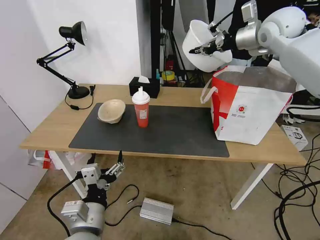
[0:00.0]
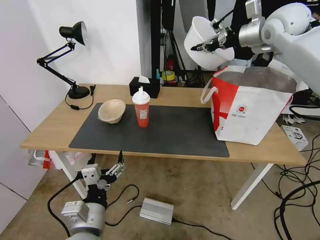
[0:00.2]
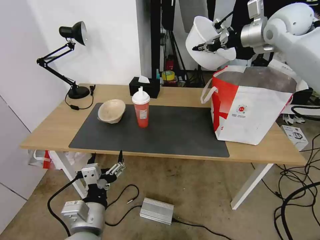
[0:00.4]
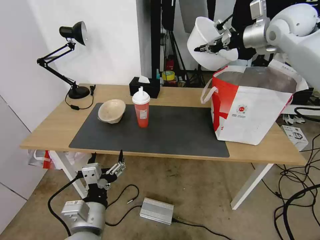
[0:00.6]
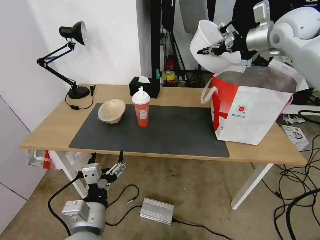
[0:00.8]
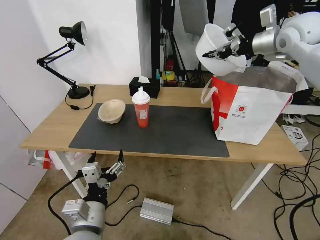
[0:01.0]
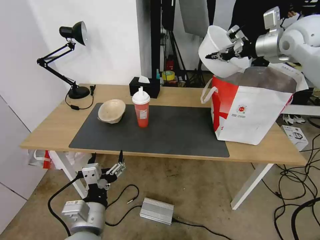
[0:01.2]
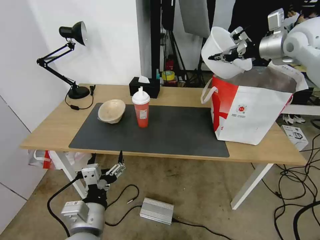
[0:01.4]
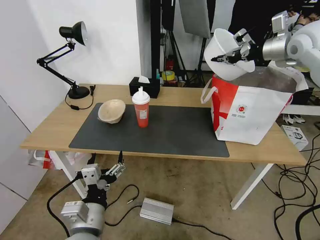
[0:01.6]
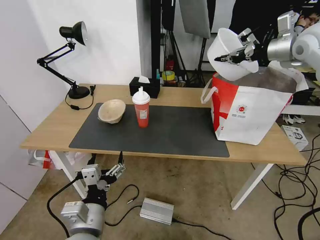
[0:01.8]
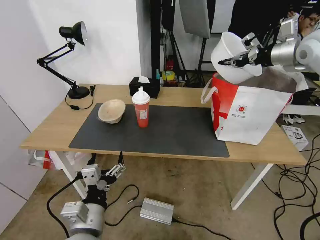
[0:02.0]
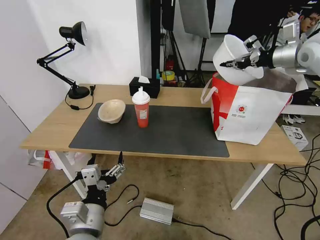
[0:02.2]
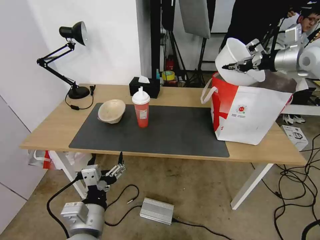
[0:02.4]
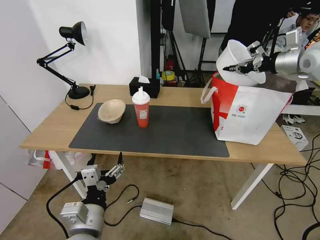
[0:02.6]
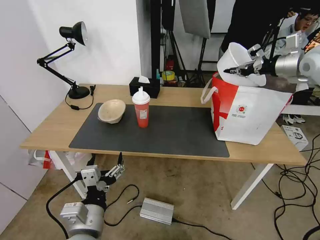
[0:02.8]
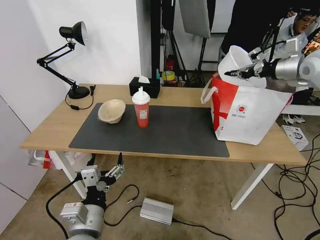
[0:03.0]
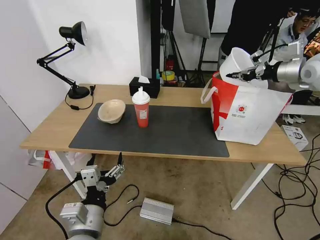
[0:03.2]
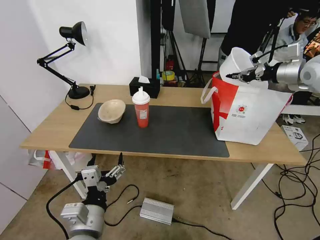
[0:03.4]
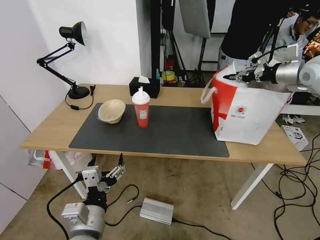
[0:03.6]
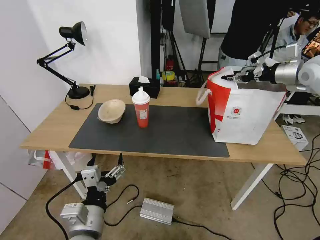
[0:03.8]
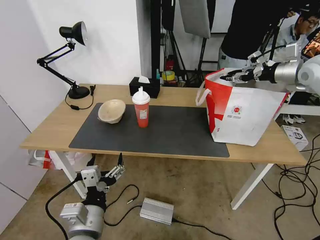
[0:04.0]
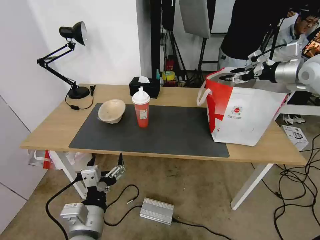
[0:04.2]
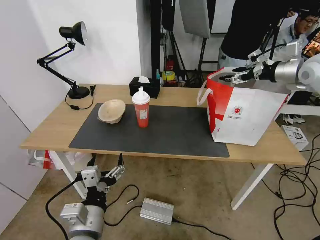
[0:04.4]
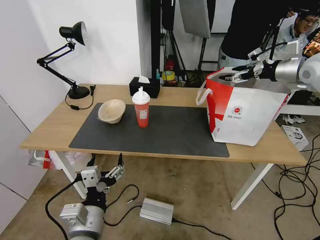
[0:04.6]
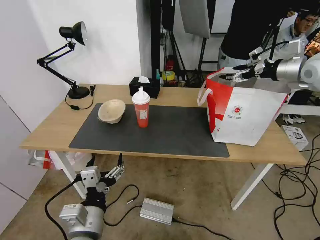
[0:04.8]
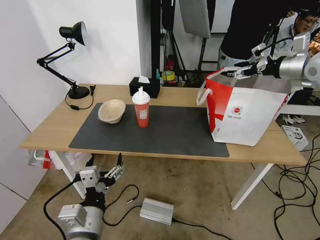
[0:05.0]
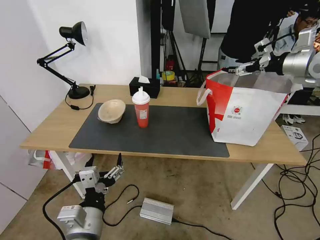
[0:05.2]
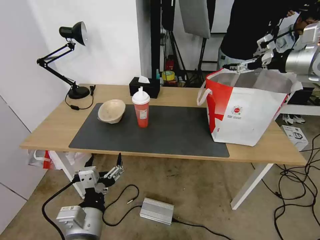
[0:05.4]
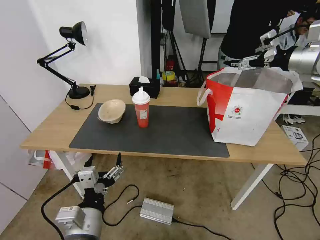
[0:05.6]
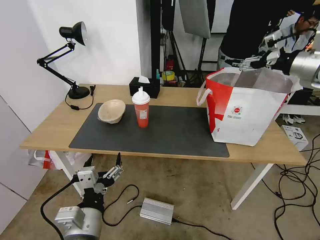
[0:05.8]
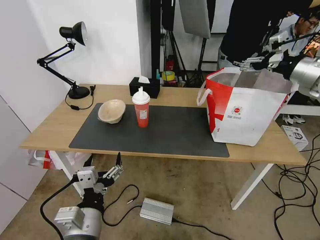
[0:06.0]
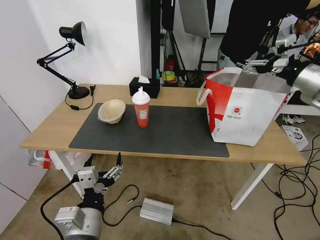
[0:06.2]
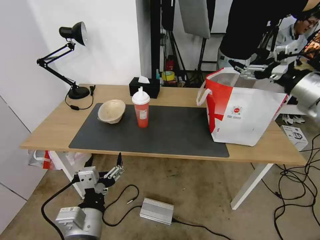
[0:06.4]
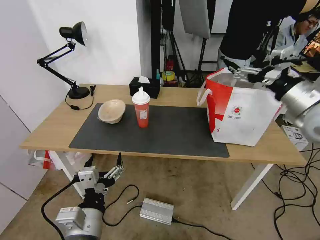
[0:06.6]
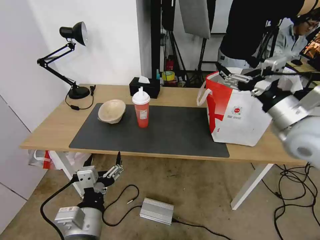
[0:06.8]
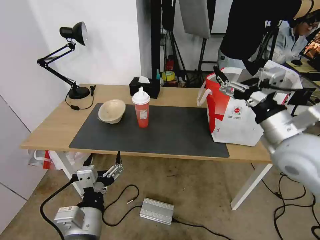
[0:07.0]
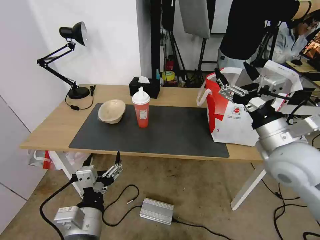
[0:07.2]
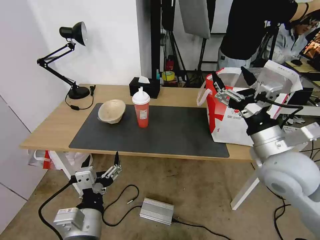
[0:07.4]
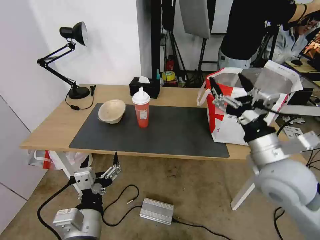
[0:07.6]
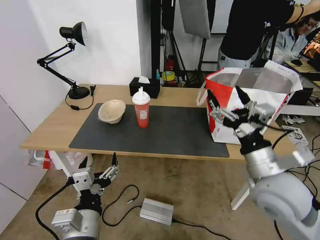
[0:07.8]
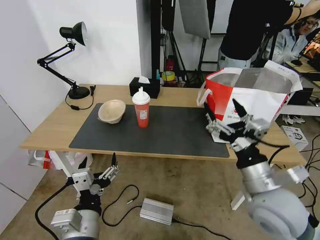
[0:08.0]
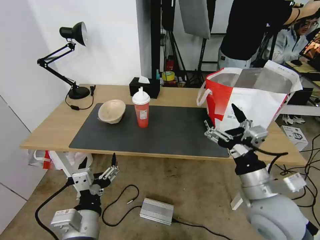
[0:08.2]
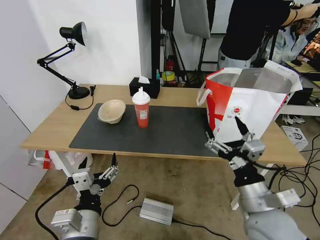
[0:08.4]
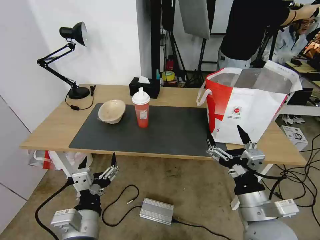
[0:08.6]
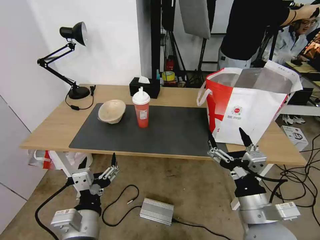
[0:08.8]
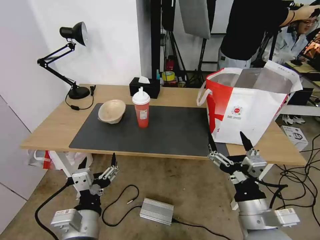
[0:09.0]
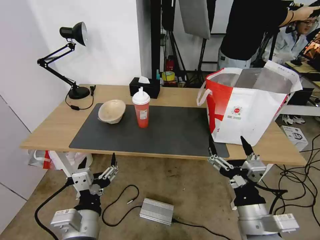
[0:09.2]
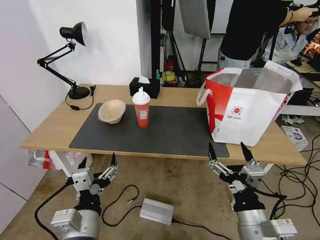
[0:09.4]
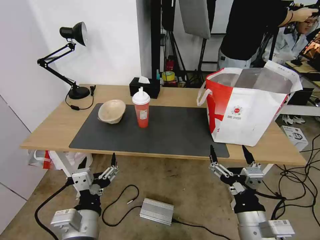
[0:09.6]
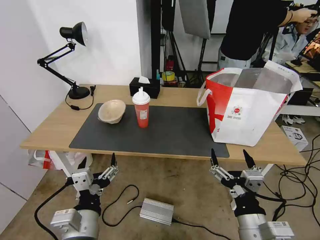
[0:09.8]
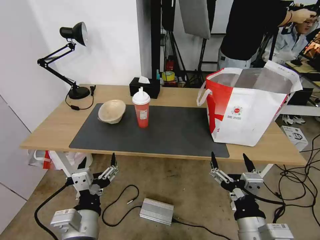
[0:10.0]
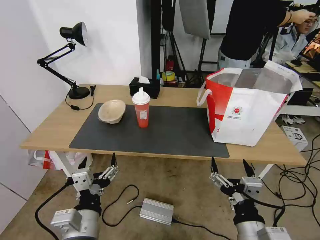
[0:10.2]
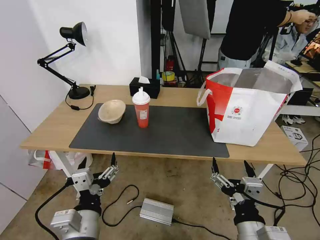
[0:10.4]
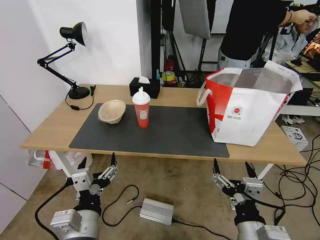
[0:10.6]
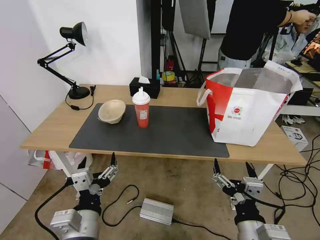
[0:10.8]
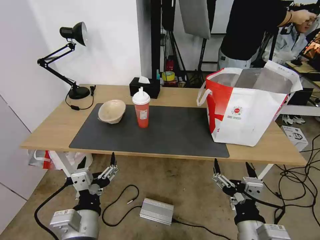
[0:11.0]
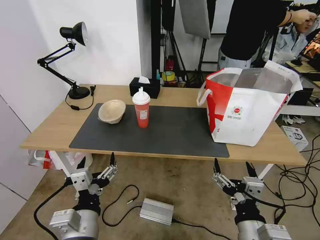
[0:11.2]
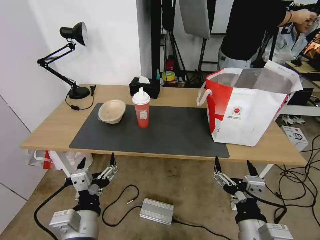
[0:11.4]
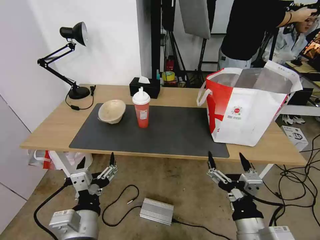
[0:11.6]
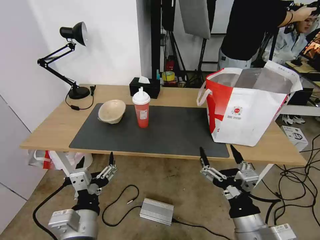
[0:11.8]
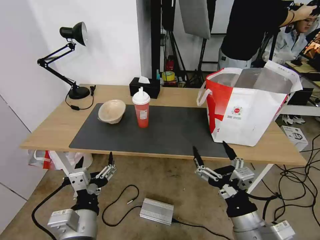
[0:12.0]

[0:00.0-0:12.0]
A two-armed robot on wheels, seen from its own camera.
Task of the whole recording: Pick up the trash from the table and place it into the takeout bag.
0:00.0 to 0:01.6: The right gripper travels to the right by some 10 cm.
0:01.6 to 0:03.0: The right gripper is displaced to the right and downward by about 10 cm.
0:03.0 to 0:04.4: The right gripper opens up.
0:04.4 to 0:06.0: The right gripper moves backward, some 10 cm.
0:06.0 to 0:07.6: The right gripper goes roughly 30 cm backward, to the left and downward.
0:07.6 to 0:09.0: The right gripper heads backward and downward, covering approximately 15 cm.
0:09.0 to 0:10.4: The right gripper moves approximately 5 cm.

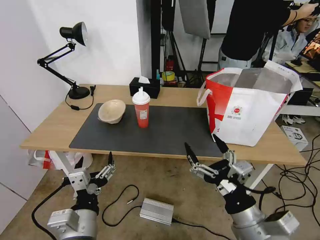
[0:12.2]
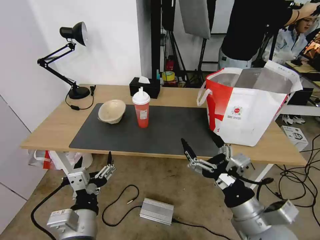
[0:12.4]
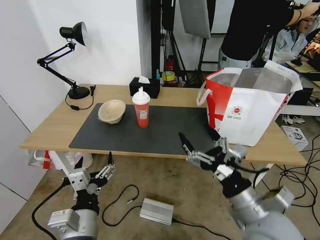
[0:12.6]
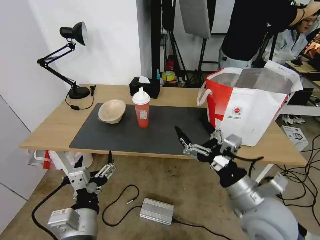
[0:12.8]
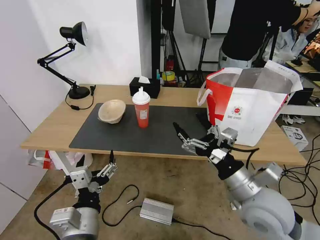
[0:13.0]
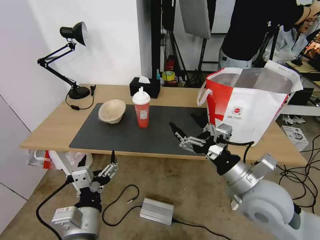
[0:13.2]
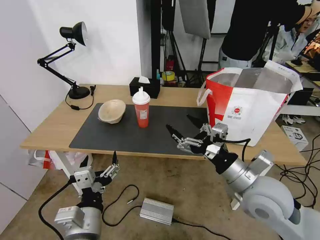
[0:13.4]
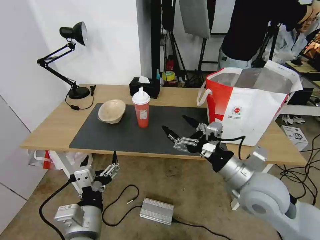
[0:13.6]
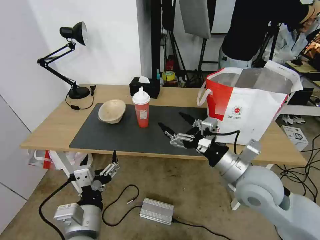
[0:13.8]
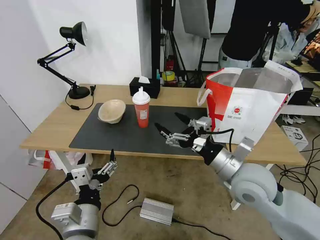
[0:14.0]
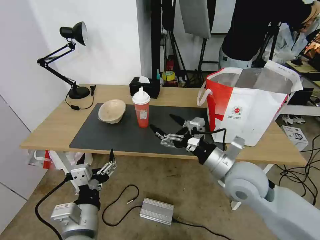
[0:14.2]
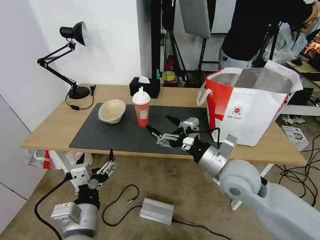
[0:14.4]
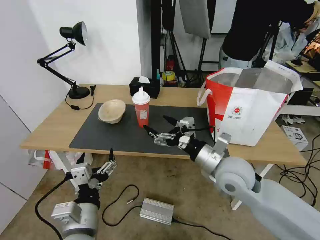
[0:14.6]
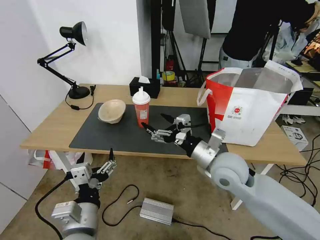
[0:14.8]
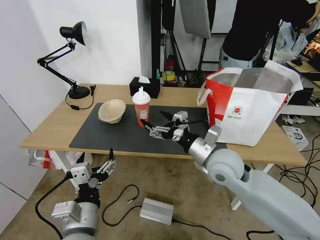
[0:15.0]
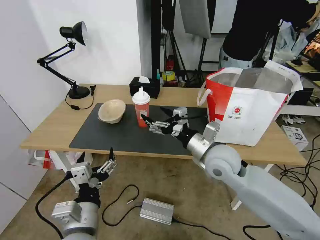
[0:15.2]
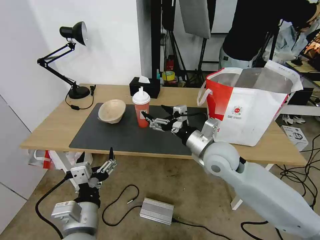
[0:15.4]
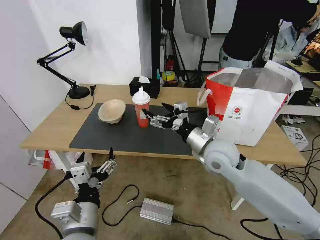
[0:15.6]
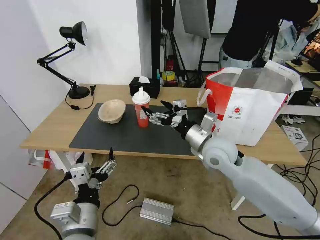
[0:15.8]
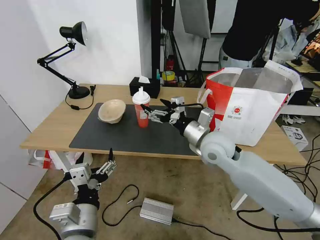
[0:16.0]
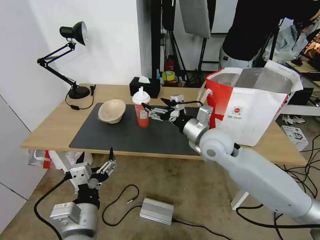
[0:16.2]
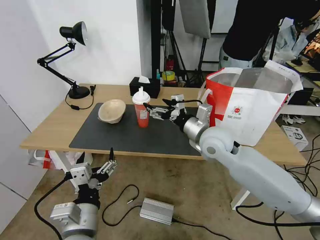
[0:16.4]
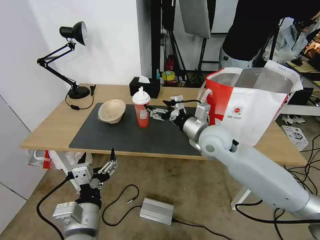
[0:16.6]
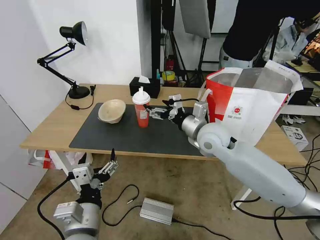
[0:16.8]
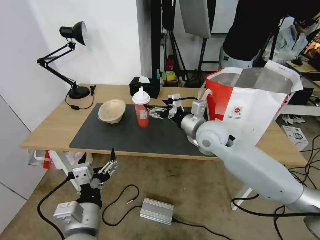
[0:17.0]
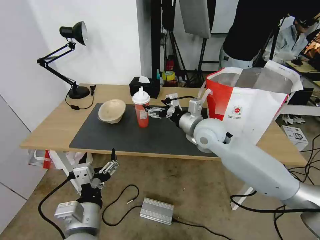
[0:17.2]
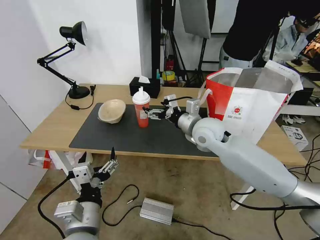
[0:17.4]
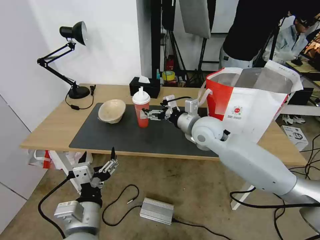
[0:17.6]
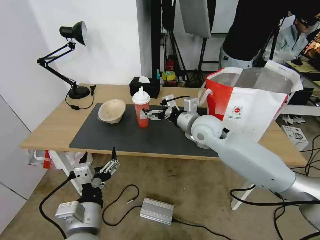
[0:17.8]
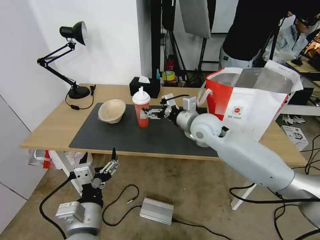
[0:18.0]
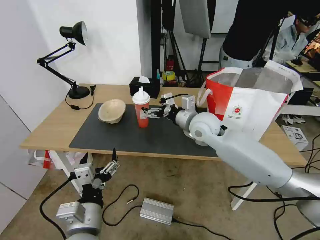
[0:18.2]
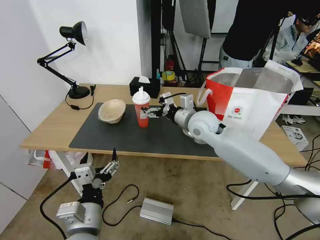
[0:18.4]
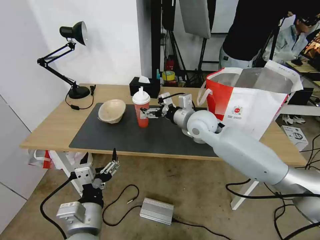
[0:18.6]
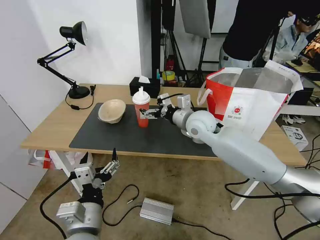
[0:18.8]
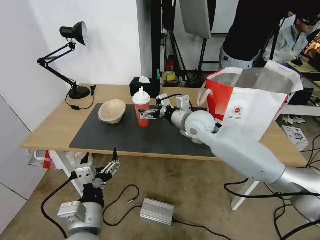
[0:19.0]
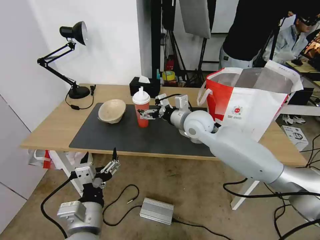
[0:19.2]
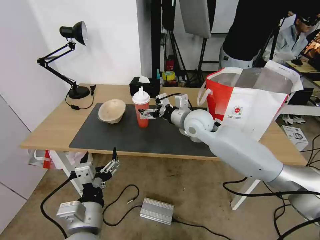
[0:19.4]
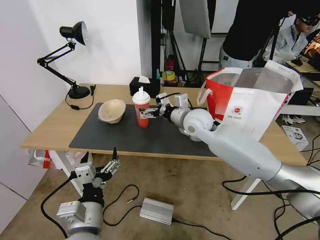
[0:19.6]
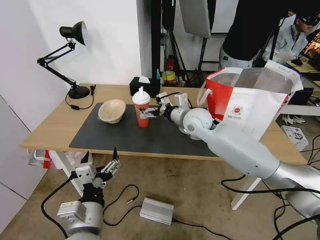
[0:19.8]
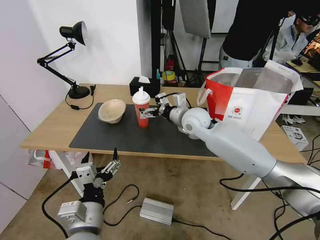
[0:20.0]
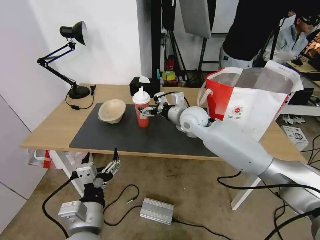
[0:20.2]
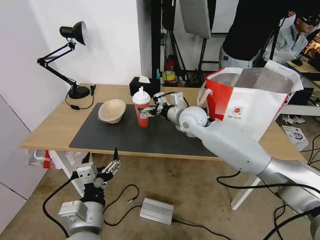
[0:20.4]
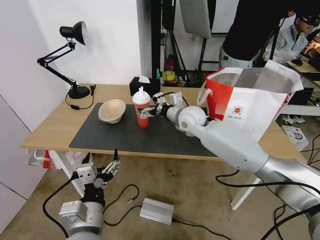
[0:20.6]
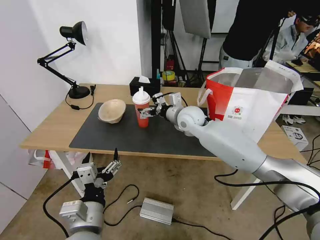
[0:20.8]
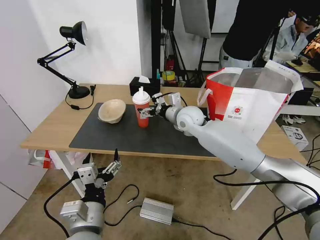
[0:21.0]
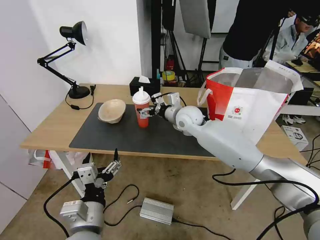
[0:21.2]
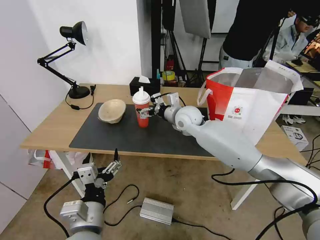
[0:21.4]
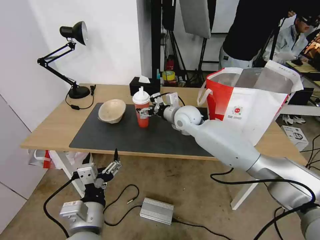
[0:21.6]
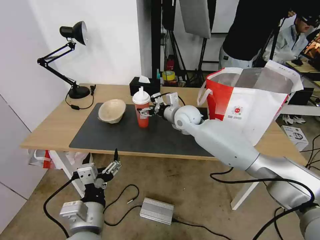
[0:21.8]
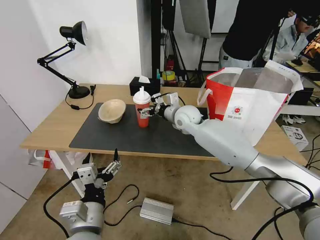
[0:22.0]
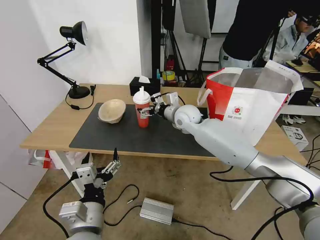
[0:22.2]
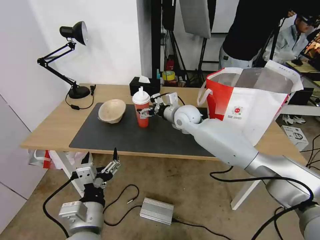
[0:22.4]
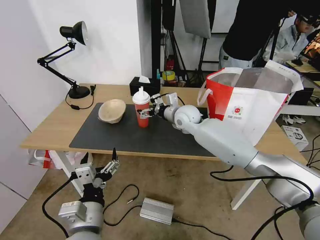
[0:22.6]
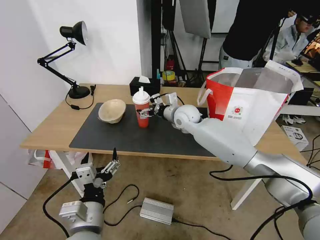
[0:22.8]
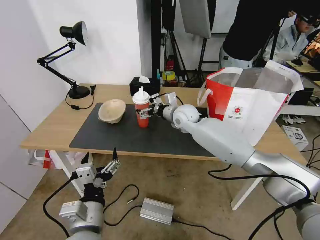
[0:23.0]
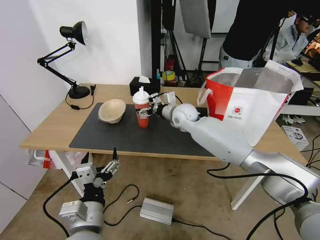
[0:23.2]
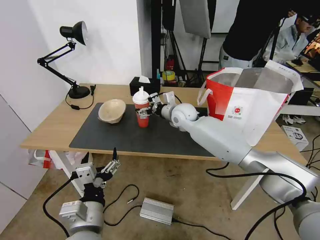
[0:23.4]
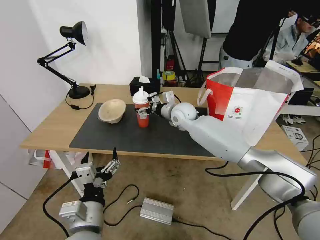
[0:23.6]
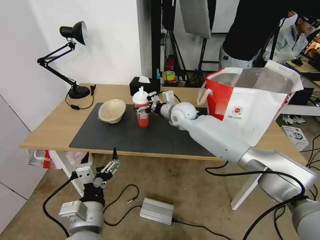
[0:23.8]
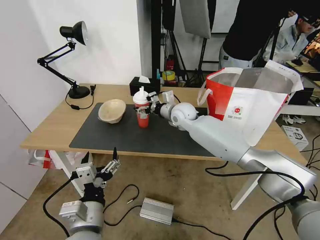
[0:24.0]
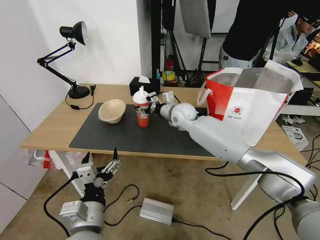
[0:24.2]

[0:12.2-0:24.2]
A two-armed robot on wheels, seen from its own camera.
Task of the whole recording: Pick up the trash from the table and place it into the takeout bag.
0:12.2 to 0:13.8: The right gripper heads forward, covering about 15 cm.
0:13.8 to 0:15.2: The right gripper moves forward and to the left, approximately 10 cm.
0:15.2 to 0:16.6: The right gripper shifts some 5 cm forward.
0:16.6 to 0:18.2: The right gripper goes roughly 5 cm forward.
0:18.2 to 0:19.8: There are only small adjustments of the grippers.
0:19.8 to 0:21.2: The grippers make only small movements.
0:21.2 to 0:22.6: The grippers move only a little.
0:22.6 to 0:24.2: The right gripper closes up.
